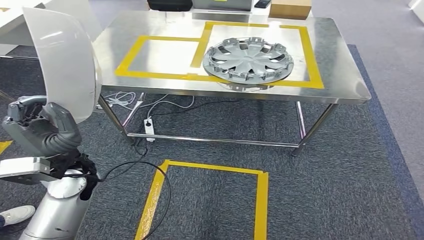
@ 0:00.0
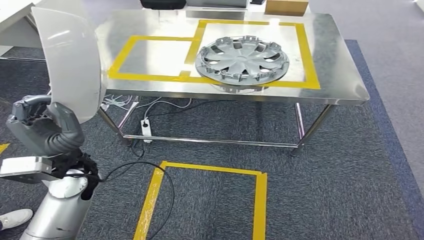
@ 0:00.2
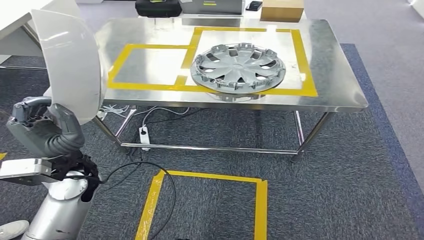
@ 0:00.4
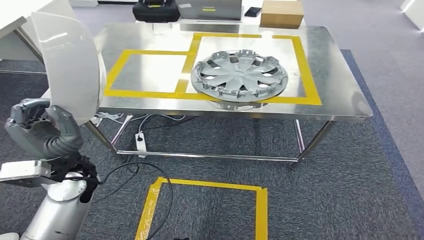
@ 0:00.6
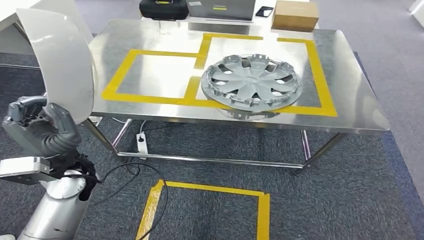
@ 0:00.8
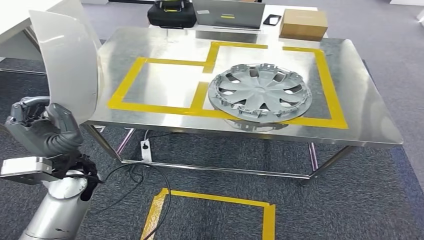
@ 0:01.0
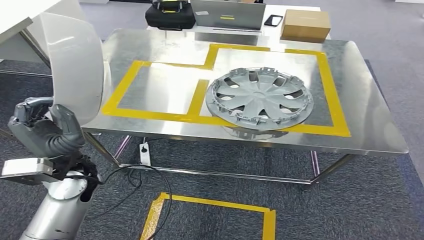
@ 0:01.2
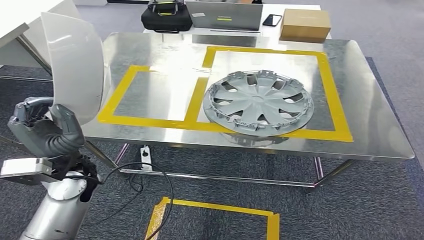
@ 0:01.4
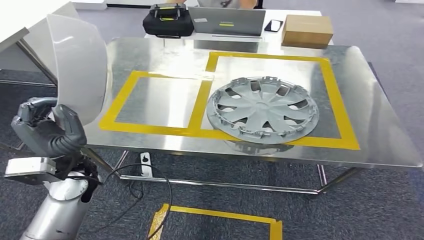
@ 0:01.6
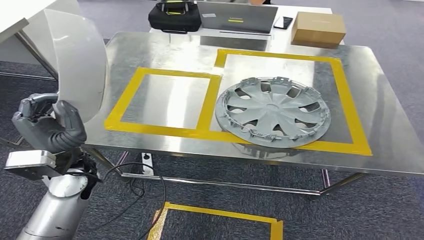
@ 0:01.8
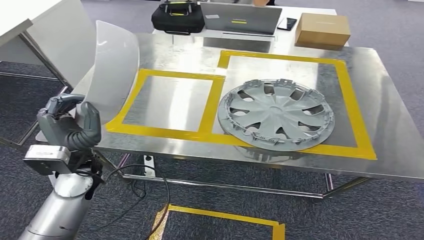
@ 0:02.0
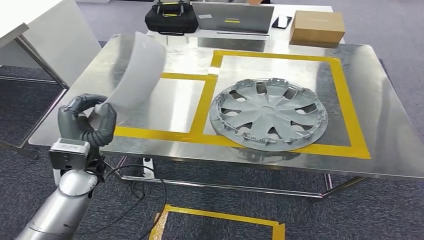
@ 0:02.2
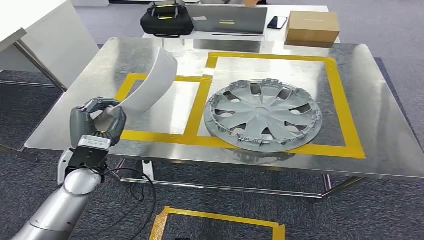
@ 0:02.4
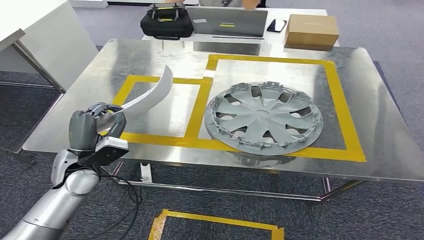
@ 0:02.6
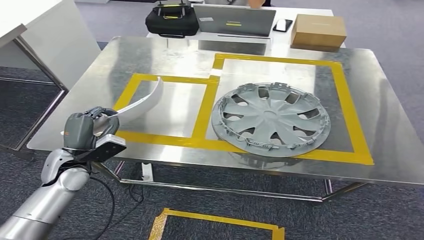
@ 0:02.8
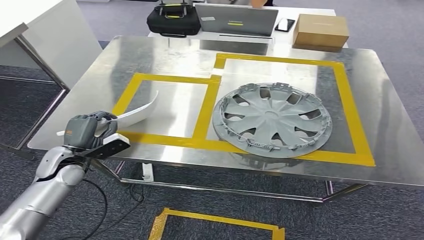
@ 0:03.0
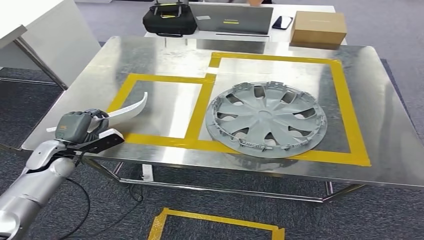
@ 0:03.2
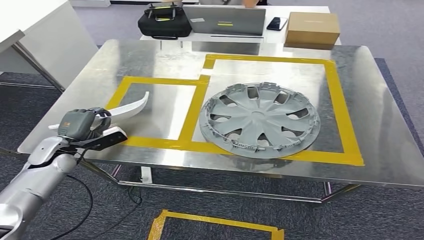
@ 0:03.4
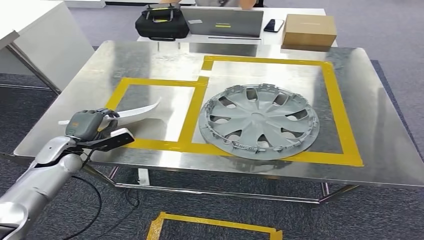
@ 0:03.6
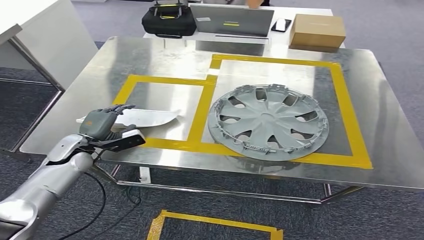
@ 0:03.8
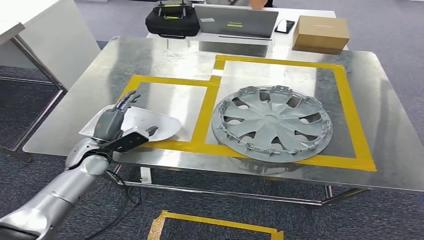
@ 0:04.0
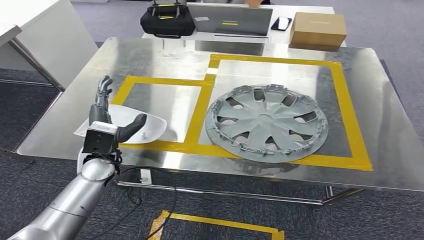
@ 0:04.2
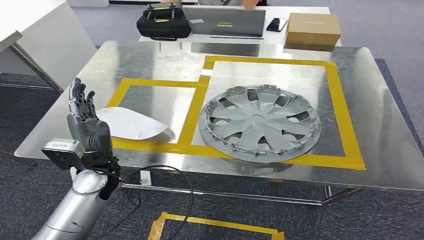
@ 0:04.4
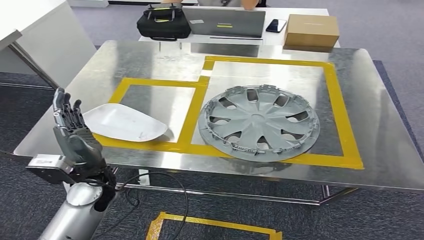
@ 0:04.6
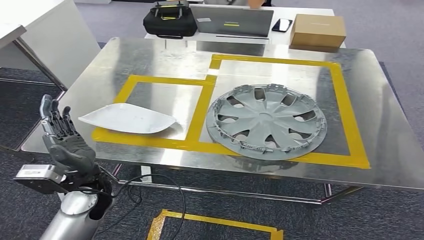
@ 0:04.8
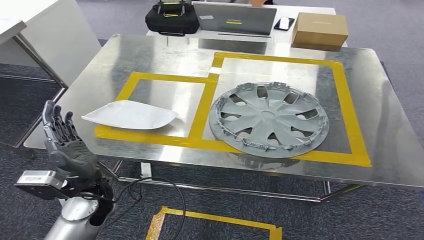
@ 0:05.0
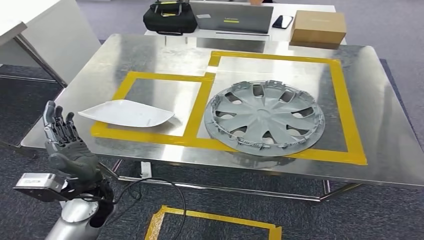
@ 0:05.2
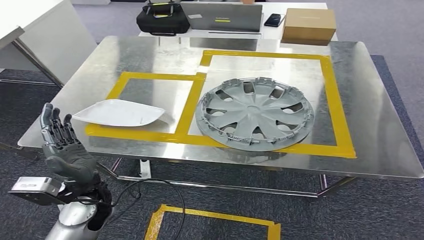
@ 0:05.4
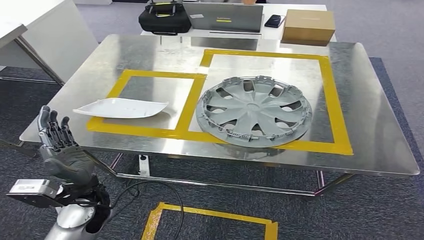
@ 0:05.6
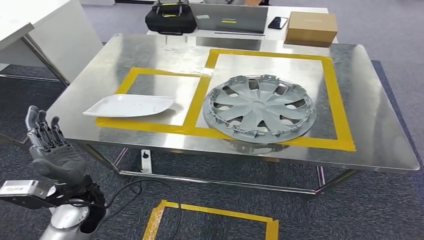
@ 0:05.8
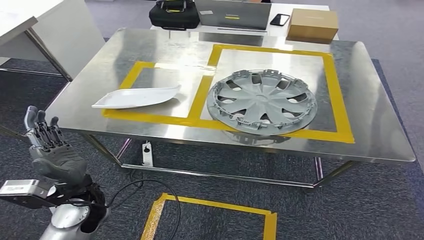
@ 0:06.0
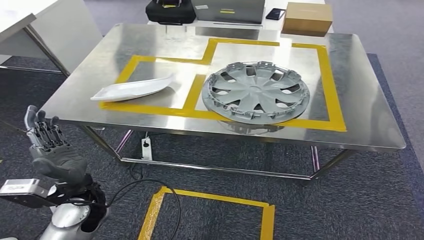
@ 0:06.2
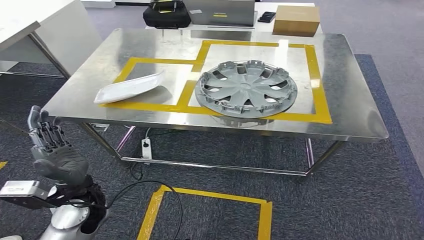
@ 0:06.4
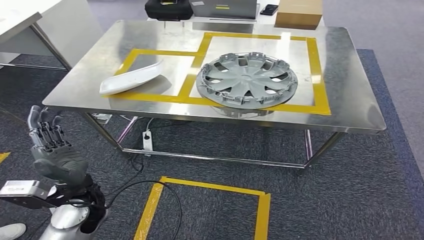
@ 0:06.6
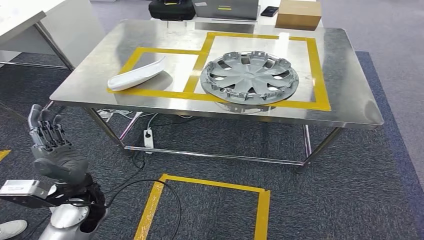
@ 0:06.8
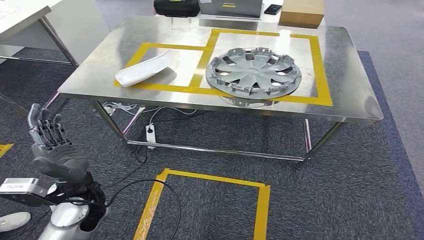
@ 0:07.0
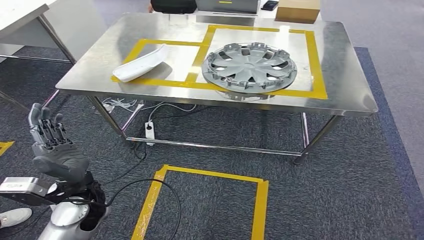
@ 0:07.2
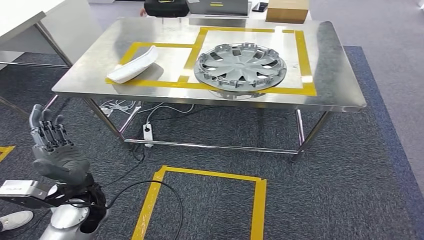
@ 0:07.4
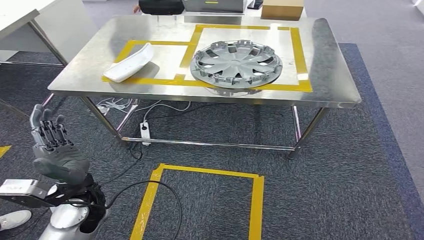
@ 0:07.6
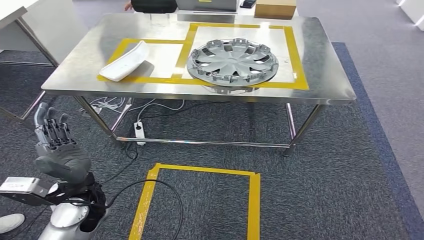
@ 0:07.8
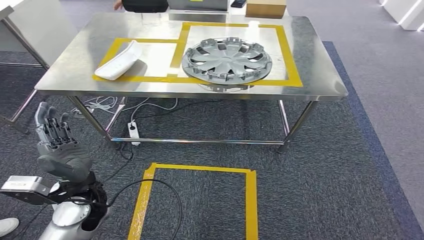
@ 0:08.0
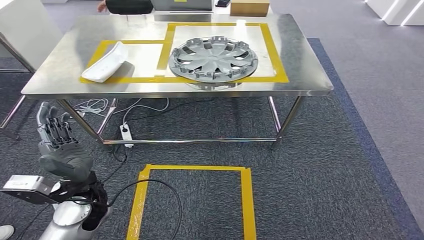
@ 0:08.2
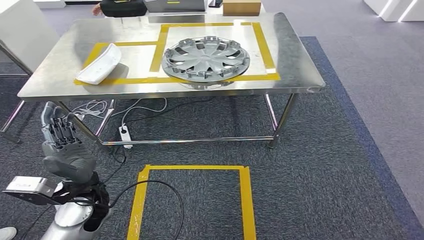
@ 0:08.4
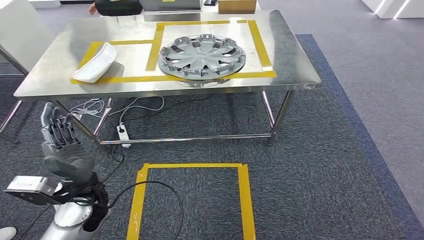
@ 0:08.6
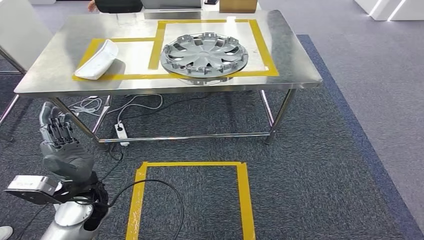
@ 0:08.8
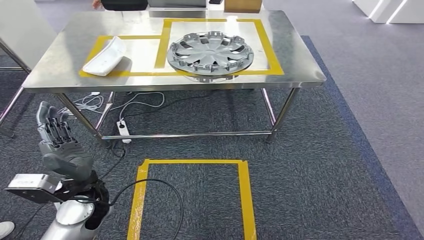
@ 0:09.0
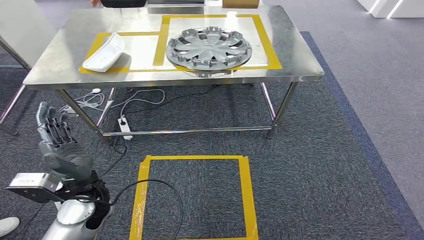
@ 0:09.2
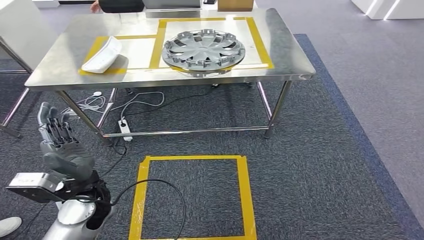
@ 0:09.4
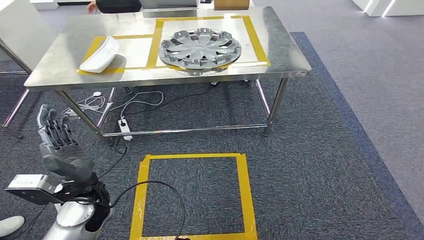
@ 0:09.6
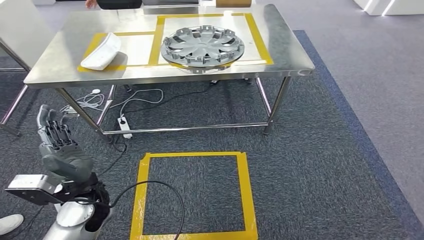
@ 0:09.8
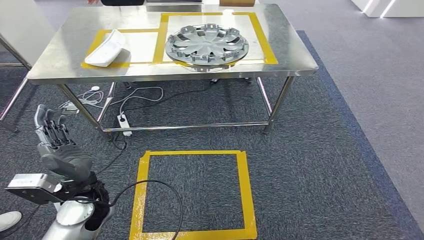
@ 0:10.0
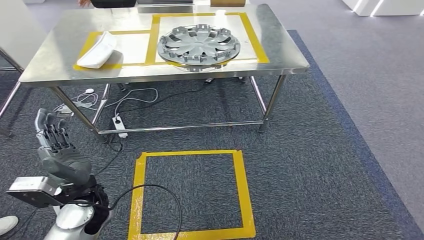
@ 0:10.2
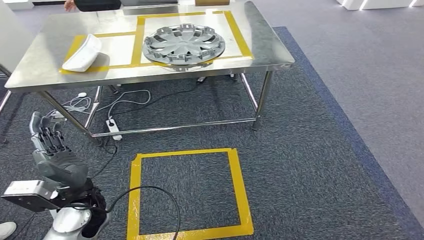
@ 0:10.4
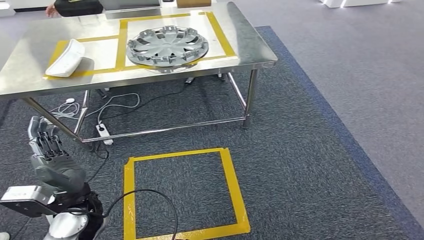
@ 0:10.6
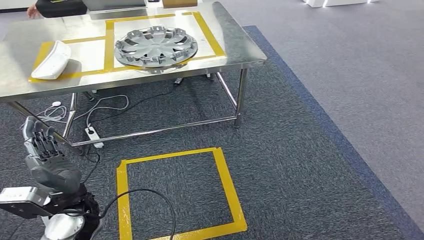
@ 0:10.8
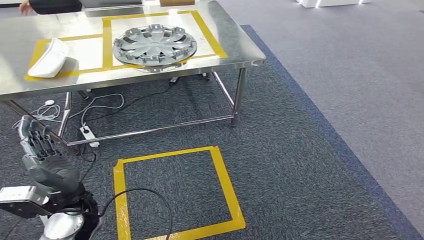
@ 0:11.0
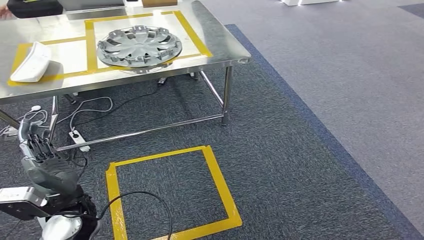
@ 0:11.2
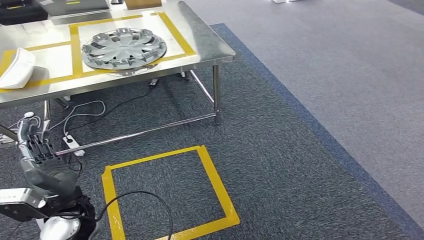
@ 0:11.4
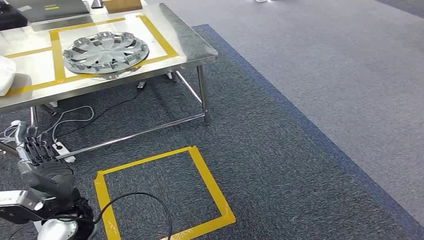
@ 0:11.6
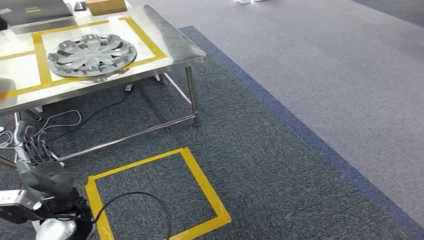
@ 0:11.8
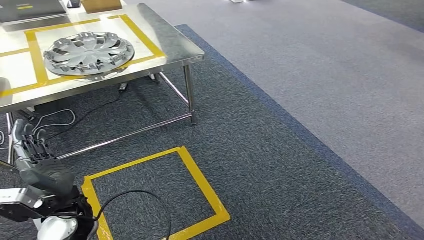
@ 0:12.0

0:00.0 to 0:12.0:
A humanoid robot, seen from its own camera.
Step, 0:00.0 to 0:05.6: Insert the small component into the corresponding slot on the workbench.

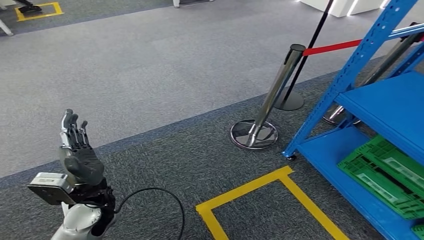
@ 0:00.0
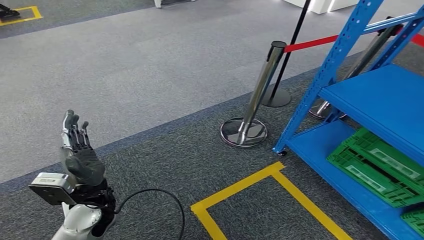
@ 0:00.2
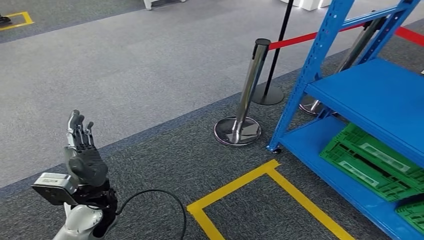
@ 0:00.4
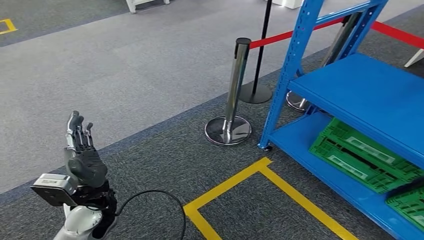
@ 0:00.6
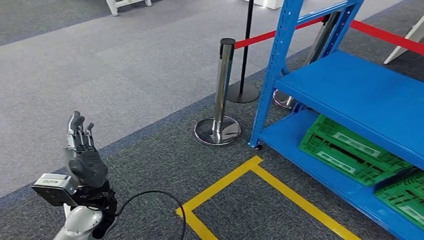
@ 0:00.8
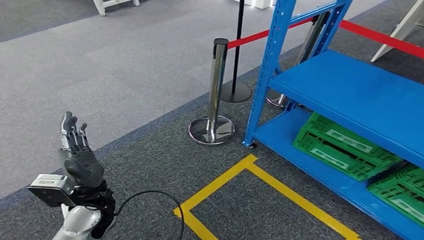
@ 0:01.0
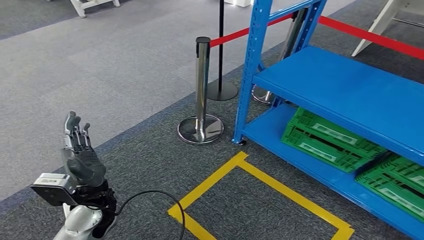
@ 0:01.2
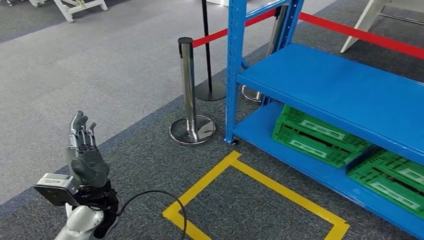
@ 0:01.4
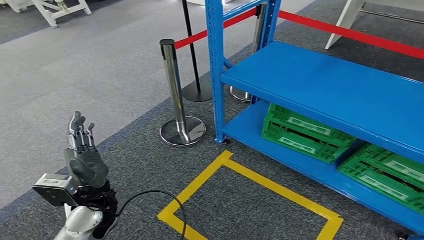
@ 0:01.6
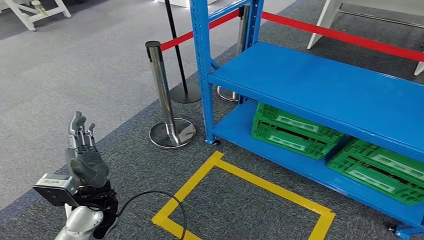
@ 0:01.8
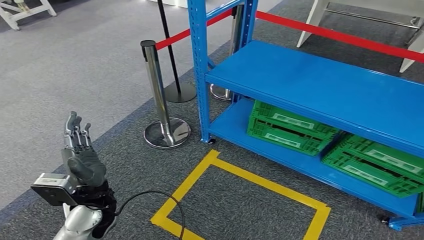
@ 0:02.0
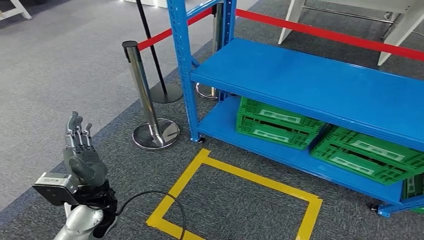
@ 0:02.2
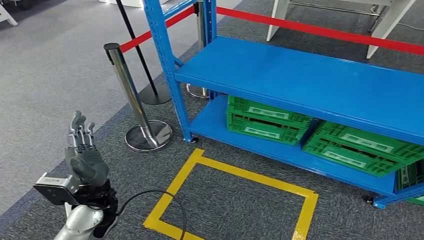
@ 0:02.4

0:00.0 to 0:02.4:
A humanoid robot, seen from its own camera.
Step, 0:00.0 to 0:02.4: Return to the initial position at the workbench.
